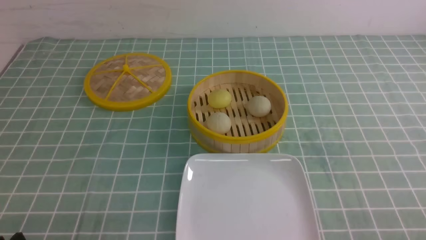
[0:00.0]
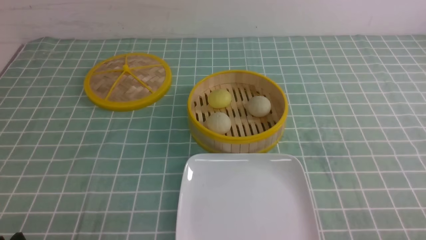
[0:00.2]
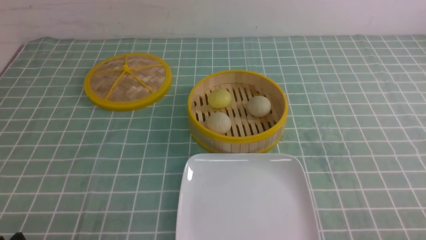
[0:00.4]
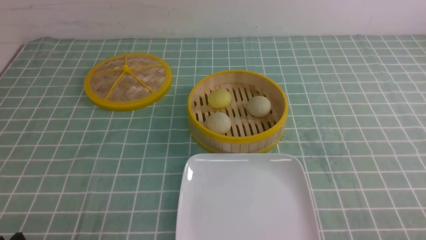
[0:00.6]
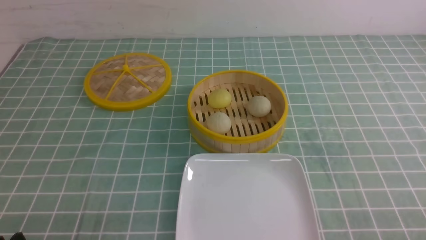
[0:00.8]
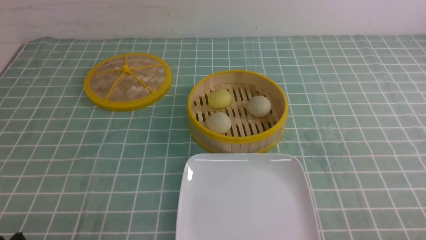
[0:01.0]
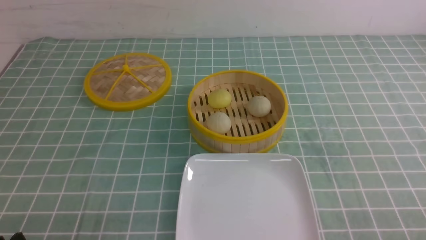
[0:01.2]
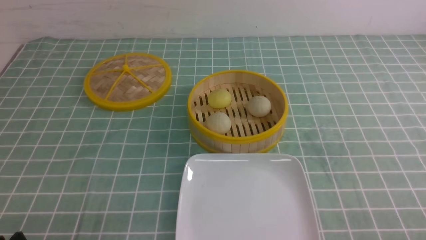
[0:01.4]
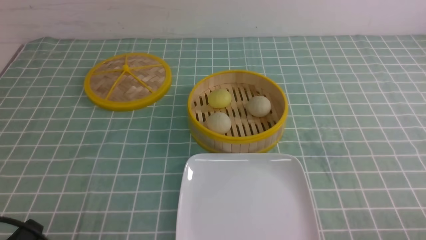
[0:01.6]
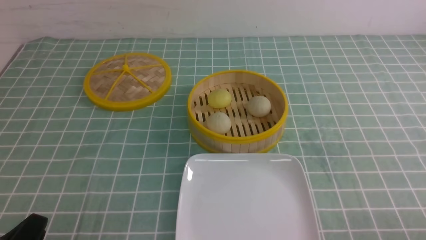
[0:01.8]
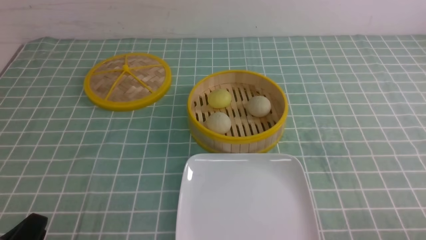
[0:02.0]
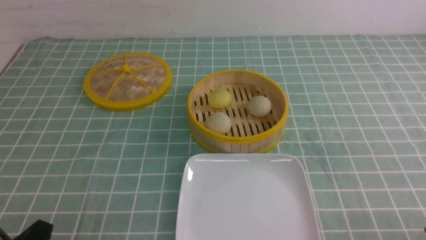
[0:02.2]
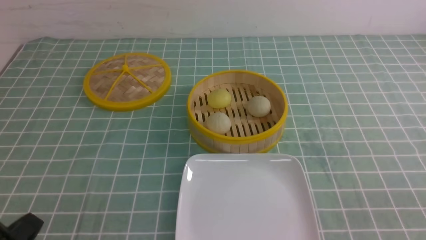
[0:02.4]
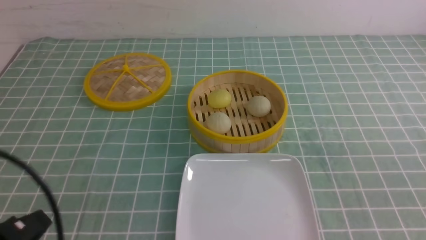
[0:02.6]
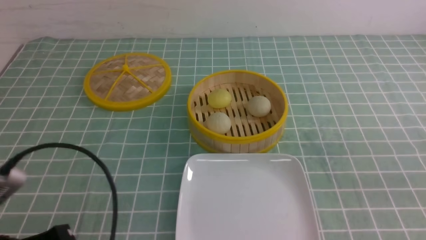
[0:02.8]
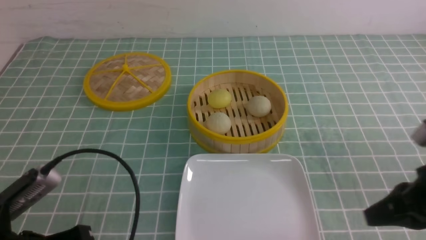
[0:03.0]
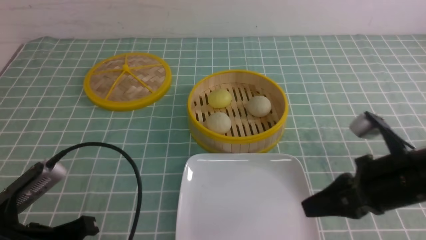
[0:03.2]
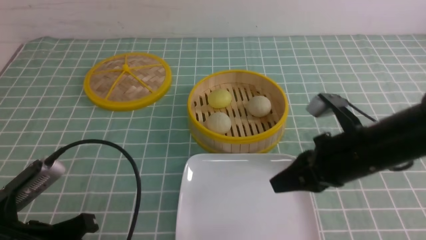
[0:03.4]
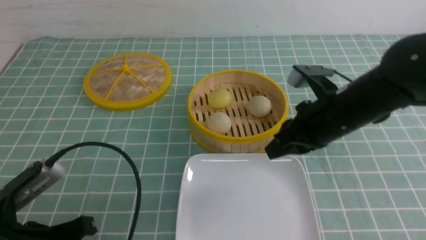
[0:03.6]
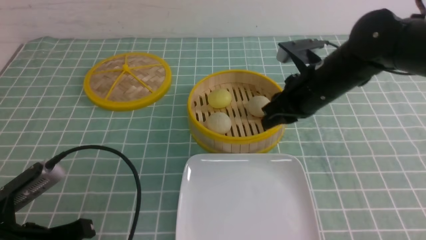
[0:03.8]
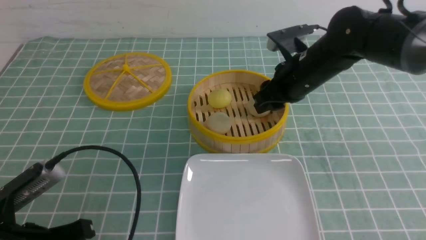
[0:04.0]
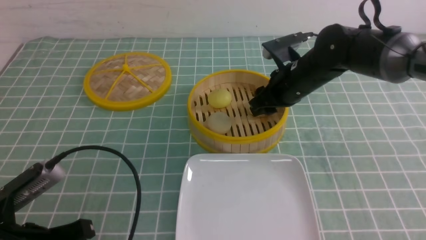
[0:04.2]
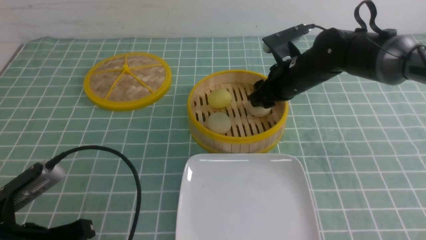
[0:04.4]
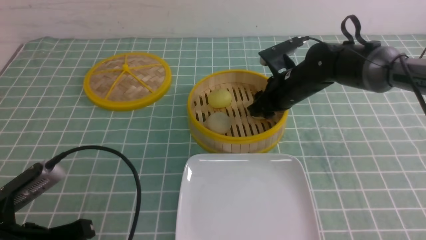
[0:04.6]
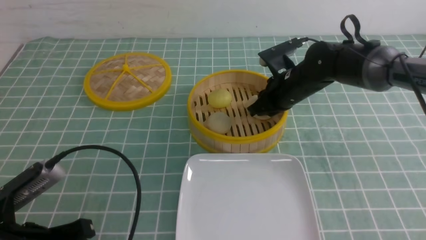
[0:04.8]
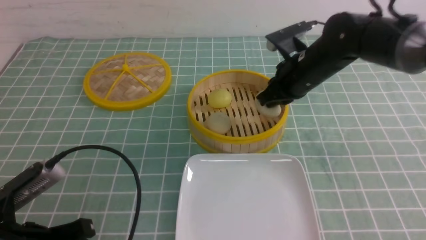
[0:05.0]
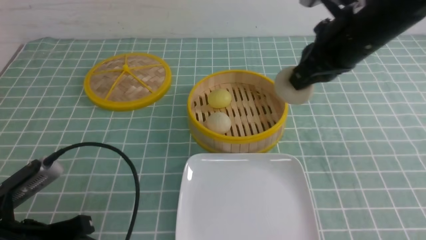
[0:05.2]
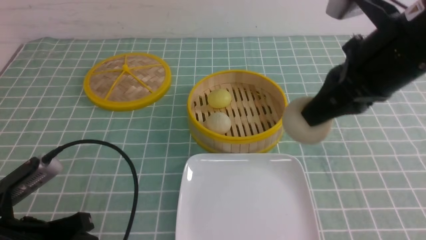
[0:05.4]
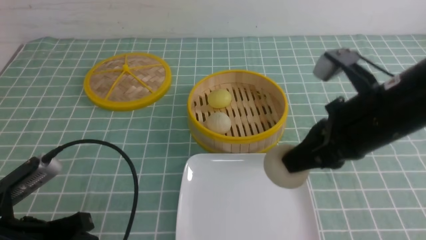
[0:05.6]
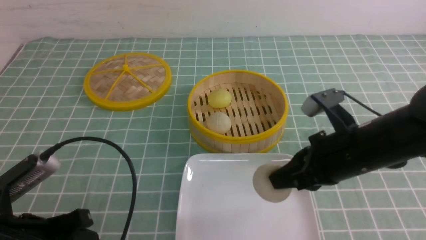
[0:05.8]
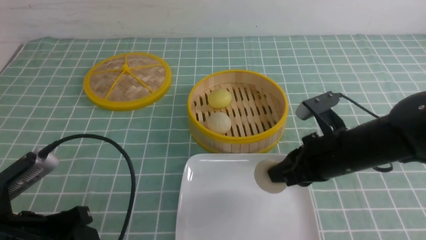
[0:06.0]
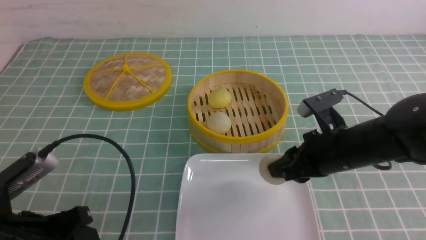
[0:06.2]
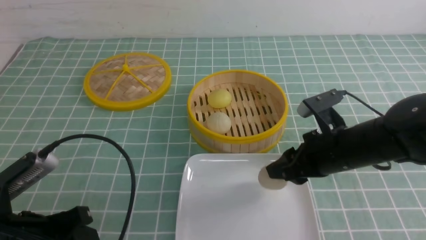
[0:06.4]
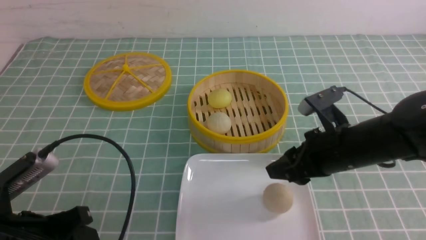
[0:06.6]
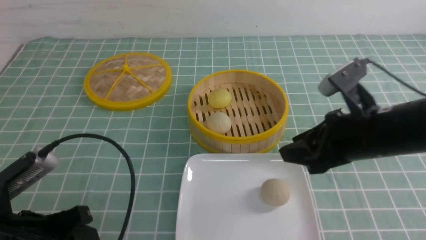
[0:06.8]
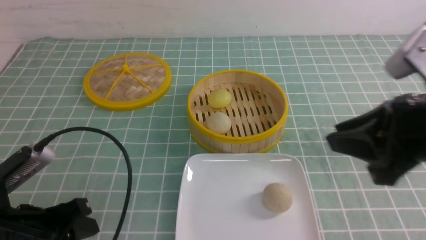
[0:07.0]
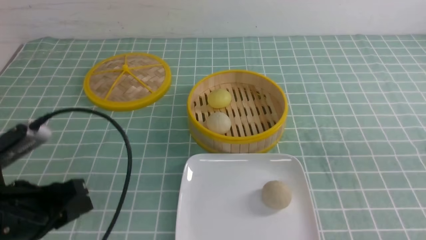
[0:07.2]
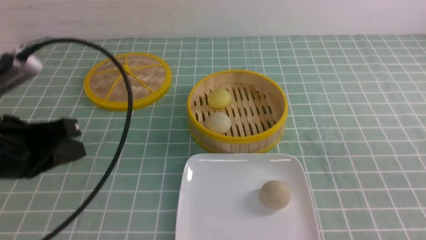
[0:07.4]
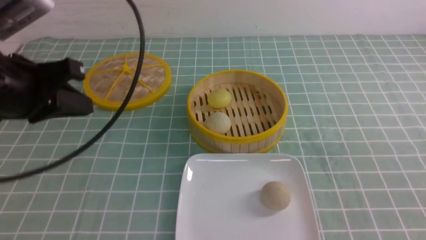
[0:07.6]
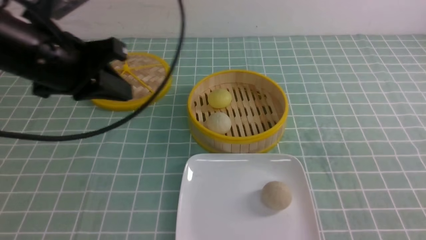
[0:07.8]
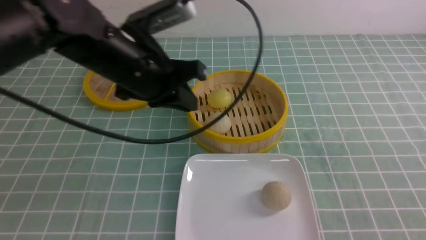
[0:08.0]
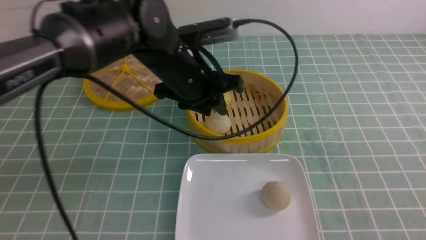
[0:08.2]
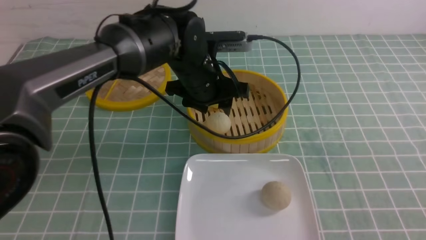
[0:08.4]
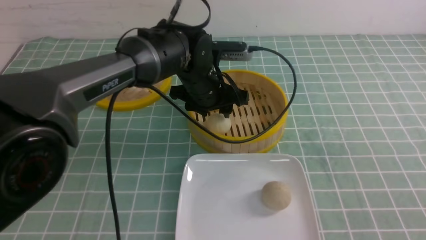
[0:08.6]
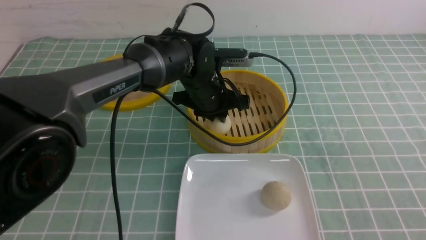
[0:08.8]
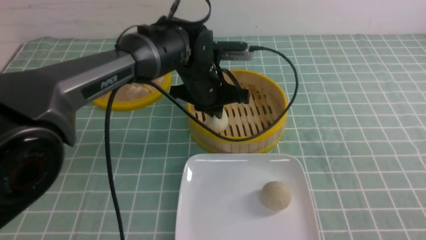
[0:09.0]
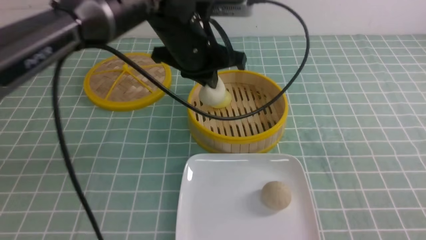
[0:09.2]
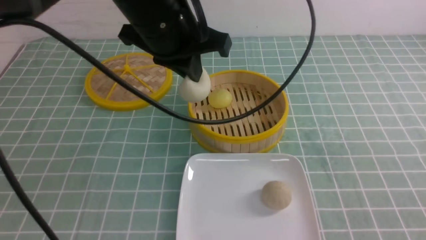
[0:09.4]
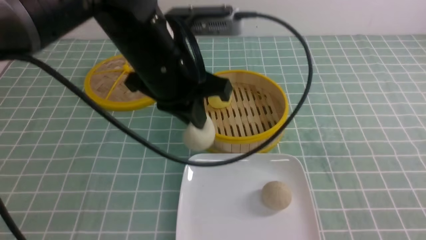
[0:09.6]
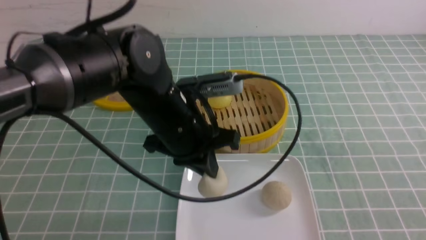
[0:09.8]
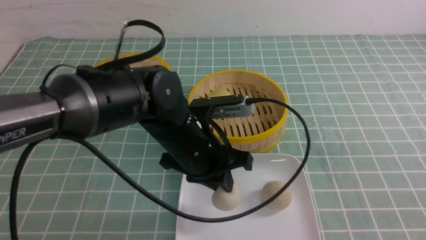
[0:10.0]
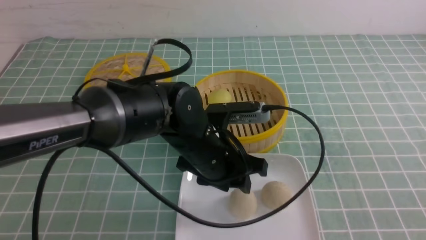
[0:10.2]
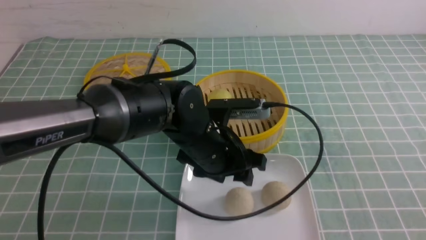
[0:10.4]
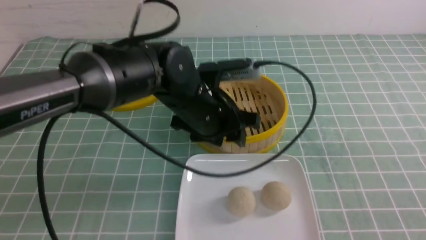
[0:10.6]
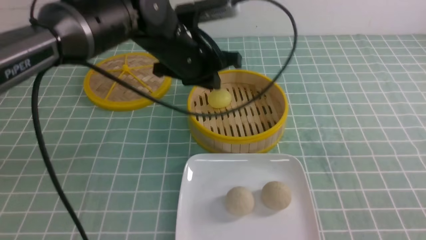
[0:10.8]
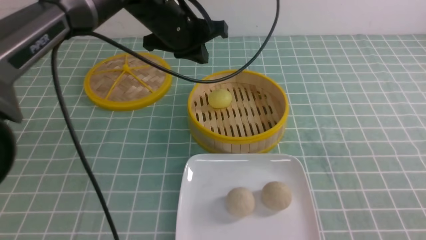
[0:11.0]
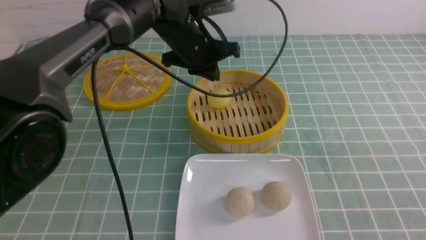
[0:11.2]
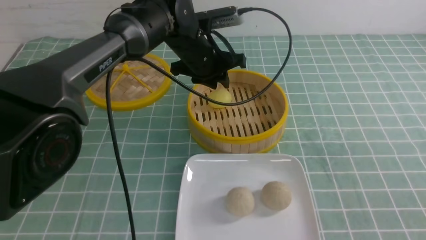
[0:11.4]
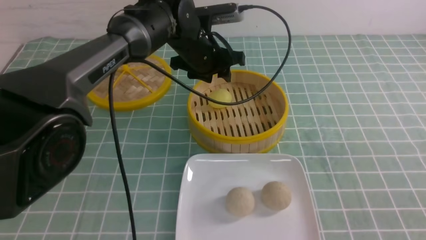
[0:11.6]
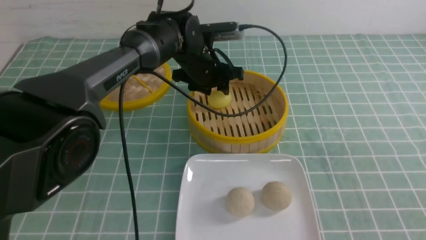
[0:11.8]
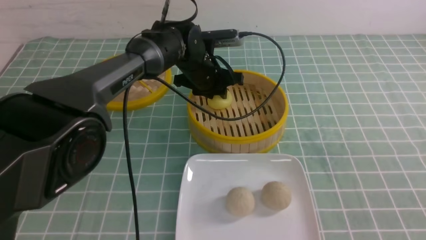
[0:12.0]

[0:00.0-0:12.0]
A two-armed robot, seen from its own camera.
Step, 0:00.0 to 0:04.8: use the right arm to grab the steamed stuffed bun that is closest to it.
Step, 0:05.0 to 0:06.4: use the right arm to put the steamed stuffed bun into the plate.
Step, 0:06.6 to 0:08.8: use the left arm to grab the steamed stuffed bun that is closest to it.
Step, 0:09.0 to 0:10.4: use the left arm to put the steamed stuffed bun into the plate.
0:01.6 to 0:03.0: The right gripper heads forward, upward and to the left, covering about 15 cm, and closes. The left gripper moves forward, approximately 5 cm, and closes its fingers.
0:03.0 to 0:04.4: The right gripper goes about 30 cm forward and to the left, and opens up. The left gripper opens its fingers.
0:04.4 to 0:06.0: The right gripper travels backward by some 15 cm, and closes.
0:06.0 to 0:07.6: The left gripper shifts approximately 15 cm upward and forward, and closes its fingers; the right gripper is displaced backward, to the right and upward by roughly 30 cm, and closes up.
0:07.6 to 0:09.0: The left gripper moves to the right, forward and downward, about 25 cm, and opens, then closes again.
0:09.0 to 0:10.4: The left gripper is displaced backward by some 10 cm, travels upward and back again, roughly 10 cm each way, and opens its fingers.
0:10.4 to 0:12.0: The left gripper travels forward by roughly 15 cm, and closes.

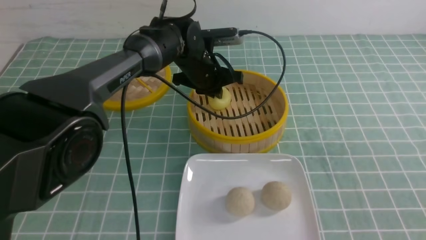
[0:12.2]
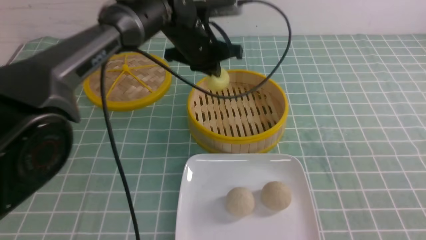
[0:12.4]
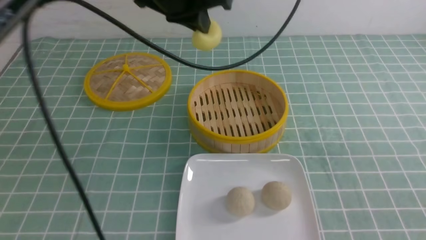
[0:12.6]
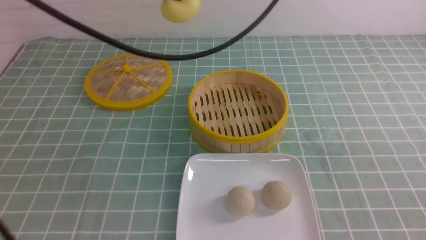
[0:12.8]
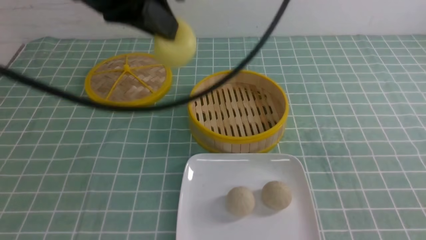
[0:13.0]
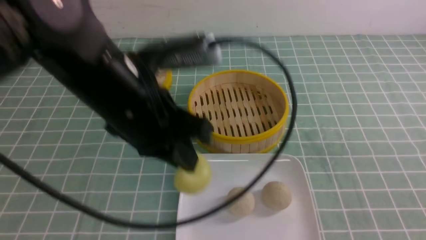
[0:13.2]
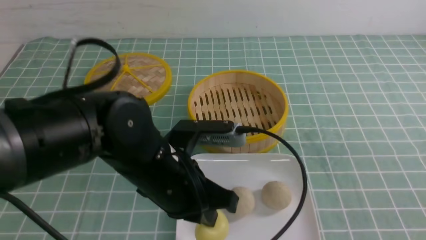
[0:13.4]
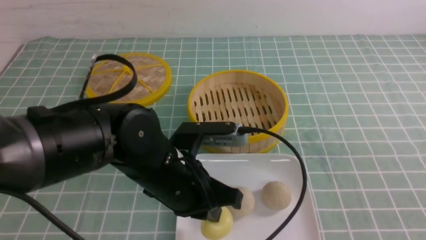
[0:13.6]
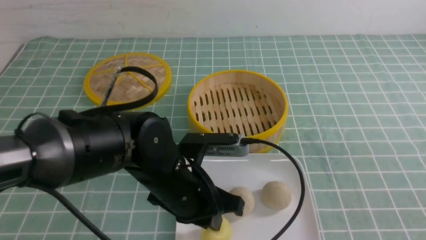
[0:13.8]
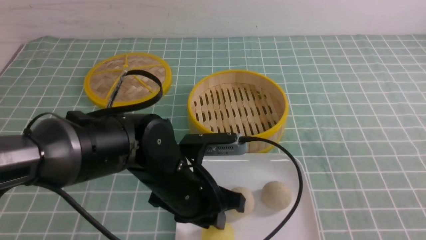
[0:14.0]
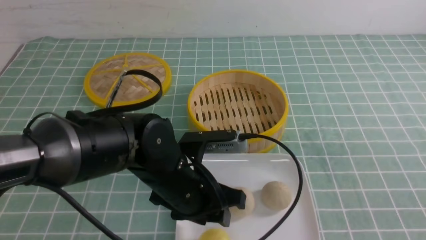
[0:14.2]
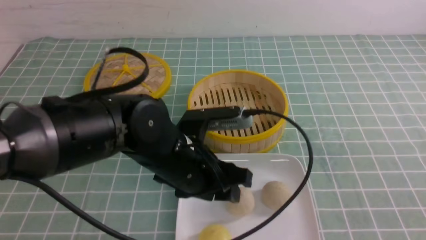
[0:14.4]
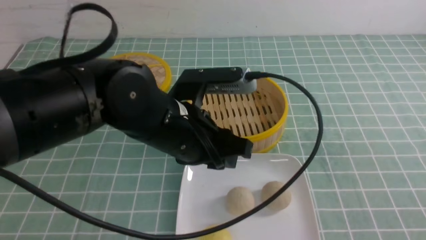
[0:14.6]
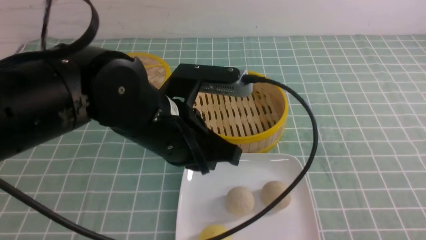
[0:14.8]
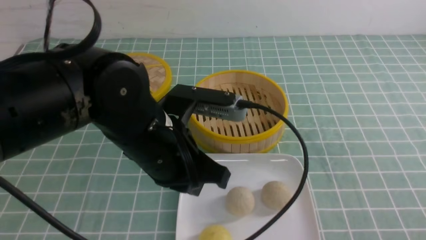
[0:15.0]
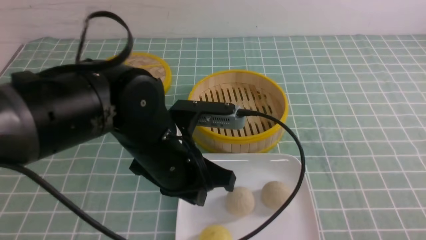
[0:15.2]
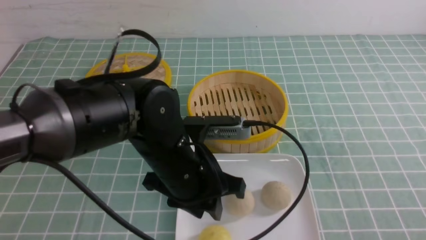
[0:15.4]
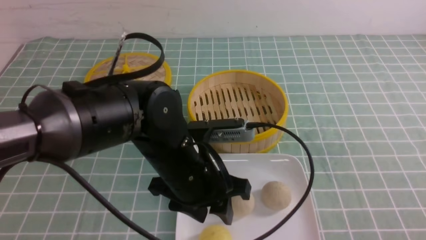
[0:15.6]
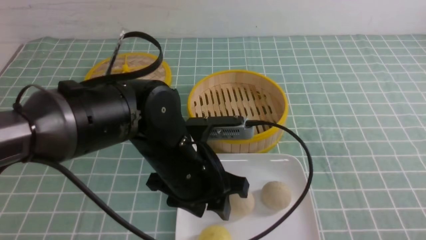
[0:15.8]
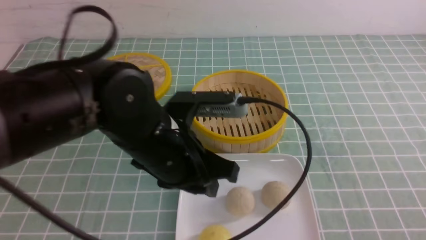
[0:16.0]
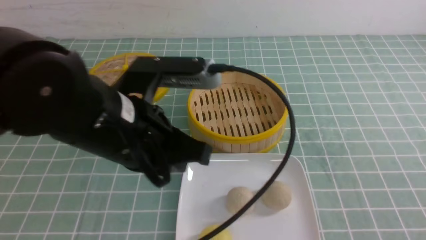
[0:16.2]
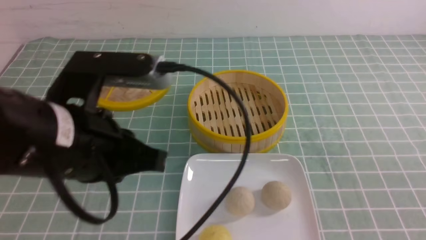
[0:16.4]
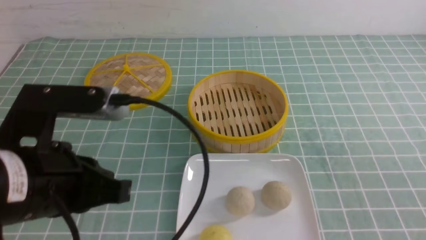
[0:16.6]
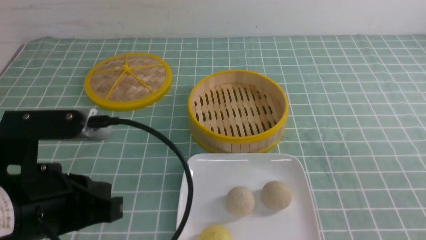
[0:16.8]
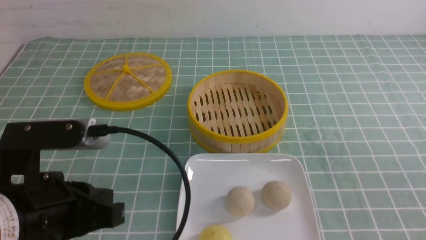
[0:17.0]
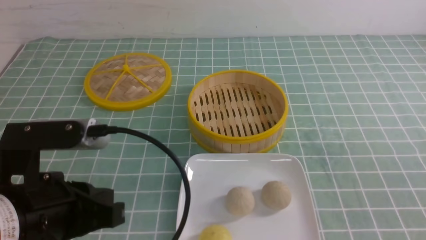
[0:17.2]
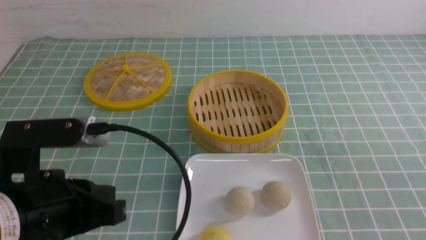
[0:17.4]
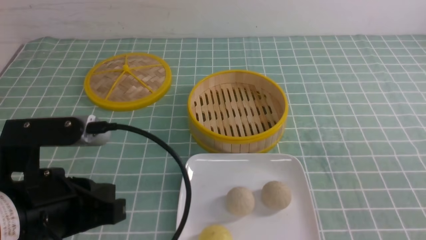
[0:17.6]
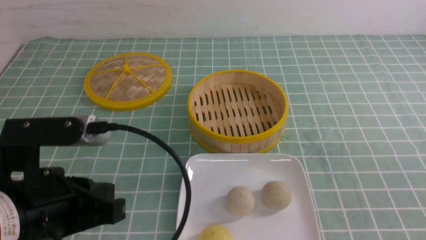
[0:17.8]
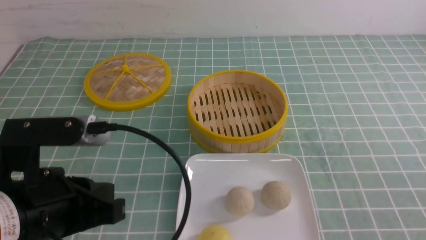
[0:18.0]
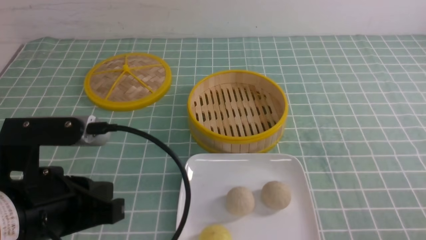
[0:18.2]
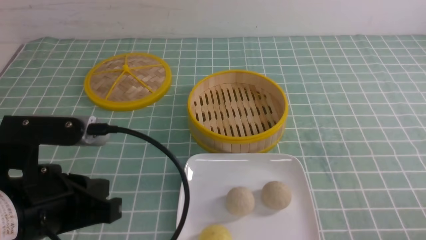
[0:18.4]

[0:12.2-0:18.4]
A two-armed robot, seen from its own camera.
Step, 0:12.2 to 0:14.2: use the left arm to put the steamed stuffed bun into the plate.
0:12.2 to 0:13.8: The left gripper heads backward, covering roughly 25 cm, and goes upward and returns, approximately 20 cm each way.
0:13.8 to 0:15.4: The right gripper closes up. The left gripper opens its fingers.
0:15.4 to 0:16.8: The left gripper is displaced to the left, backward and upward by some 15 cm, and closes its fingers.
0:16.8 to 0:18.4: The right gripper moves downward, approximately 10 cm.
